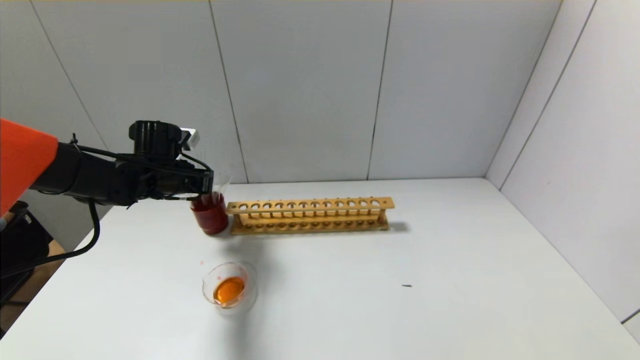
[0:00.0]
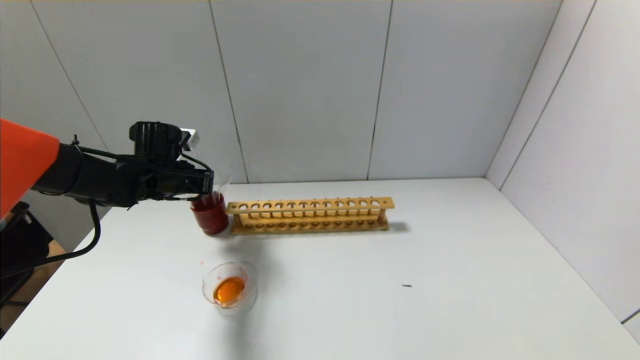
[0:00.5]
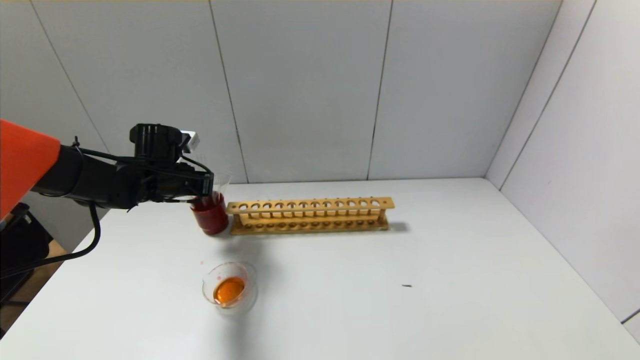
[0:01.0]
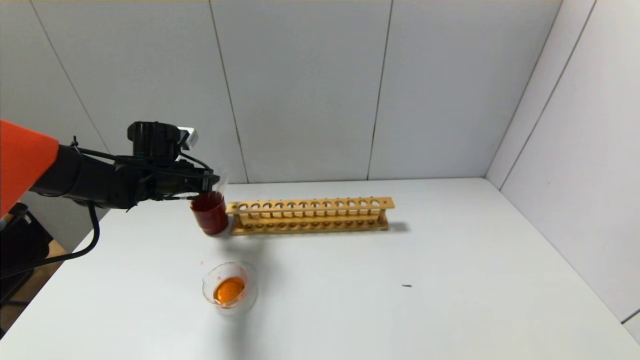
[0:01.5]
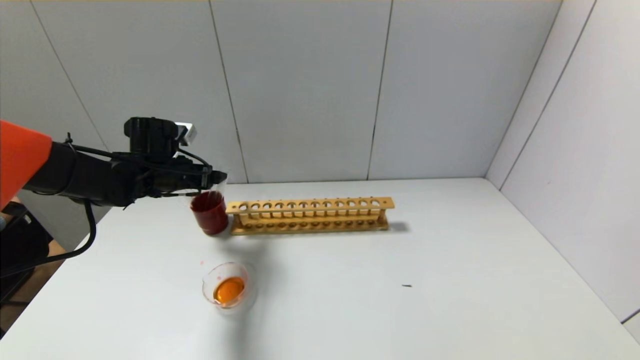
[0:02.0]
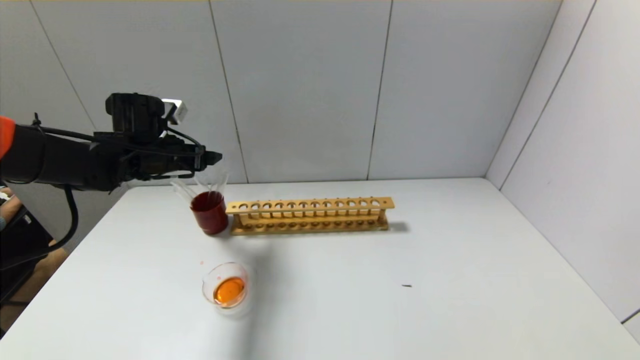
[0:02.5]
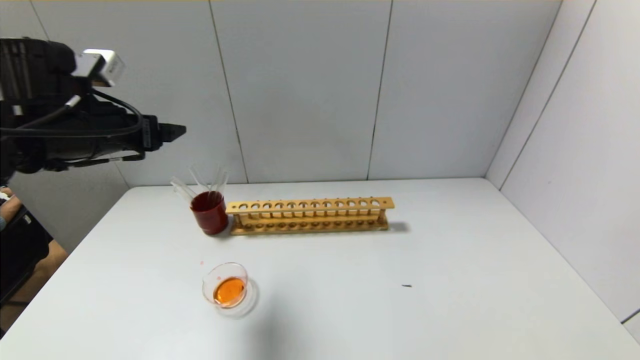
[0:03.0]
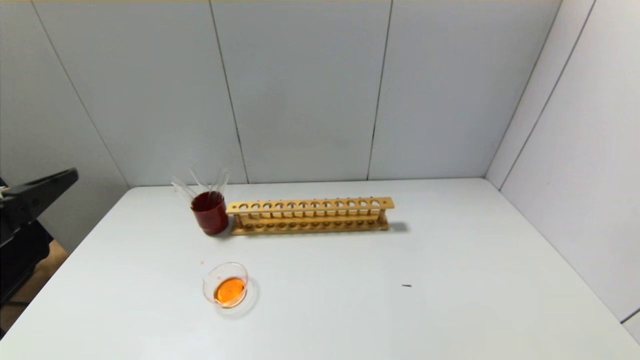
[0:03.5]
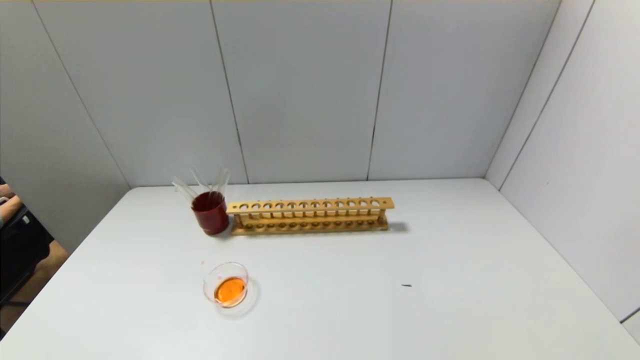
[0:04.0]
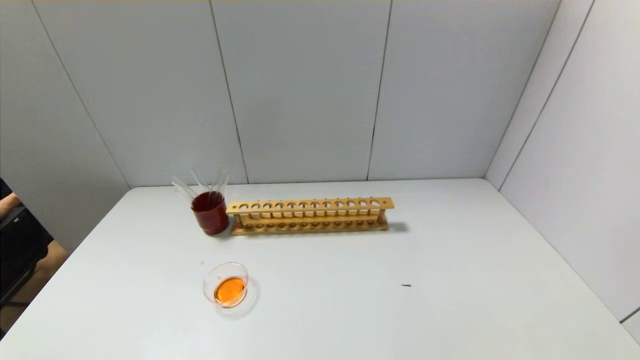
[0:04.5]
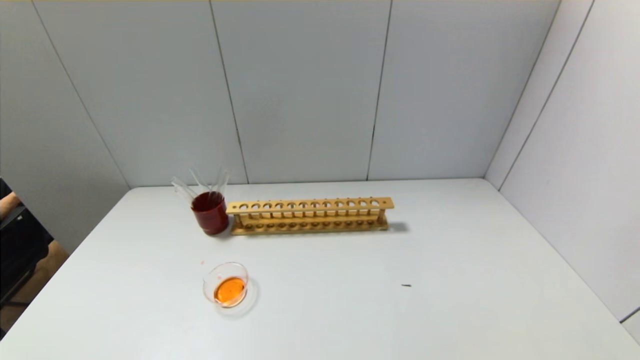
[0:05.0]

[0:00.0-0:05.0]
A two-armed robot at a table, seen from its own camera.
0.0 to 2.5 s: The left gripper shifts roughly 5 cm upward, and opens its fingers.
2.5 to 5.0 s: The left gripper moves backward, approximately 40 cm.

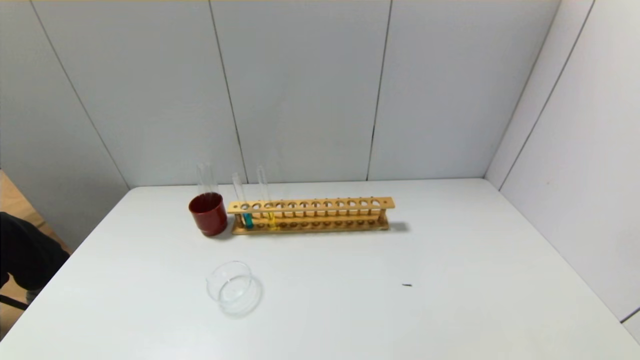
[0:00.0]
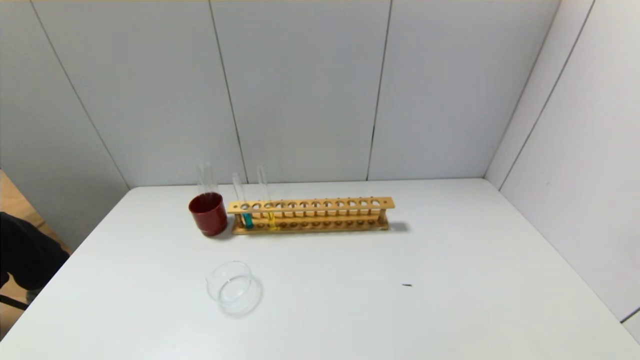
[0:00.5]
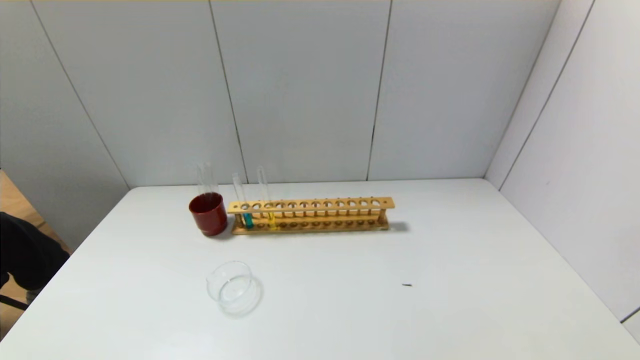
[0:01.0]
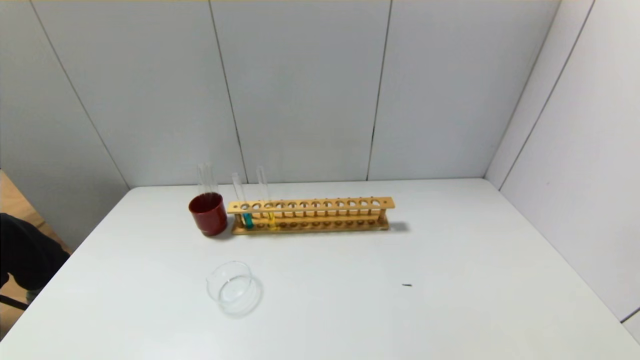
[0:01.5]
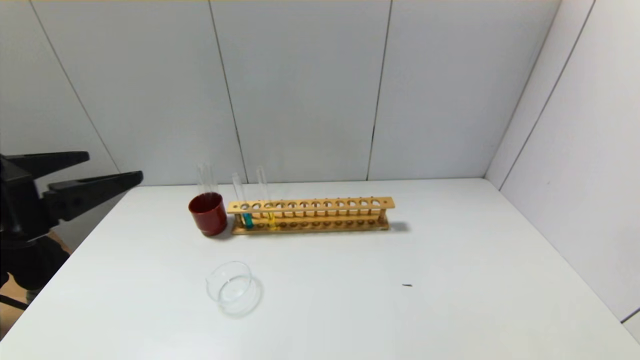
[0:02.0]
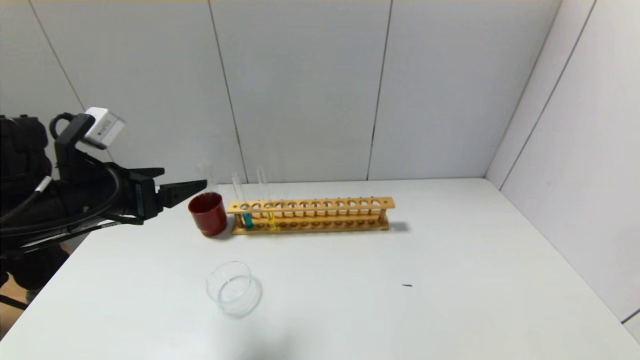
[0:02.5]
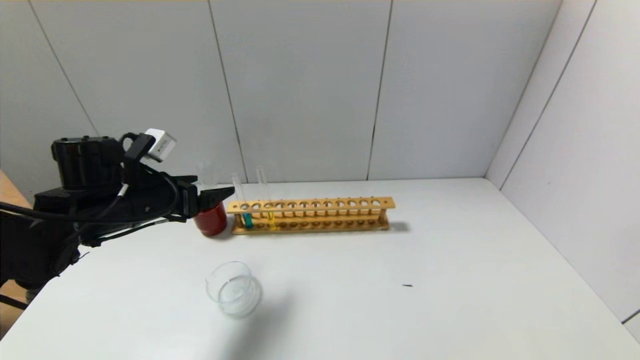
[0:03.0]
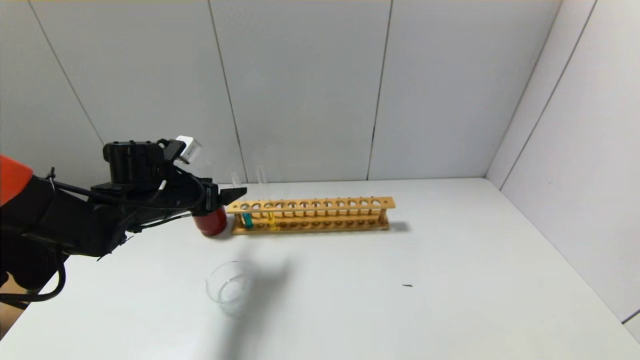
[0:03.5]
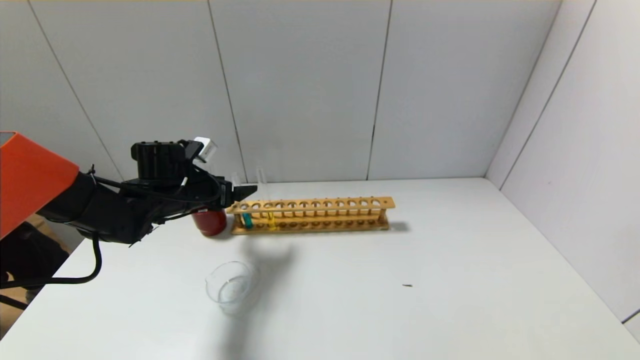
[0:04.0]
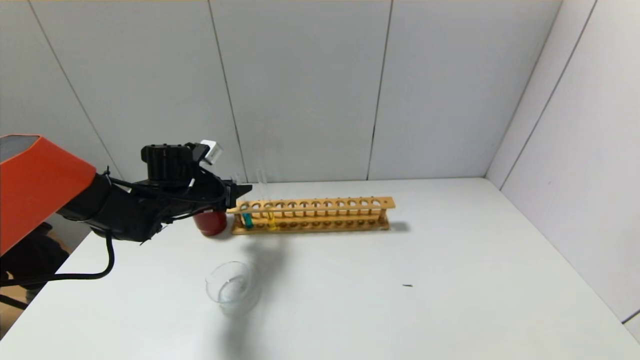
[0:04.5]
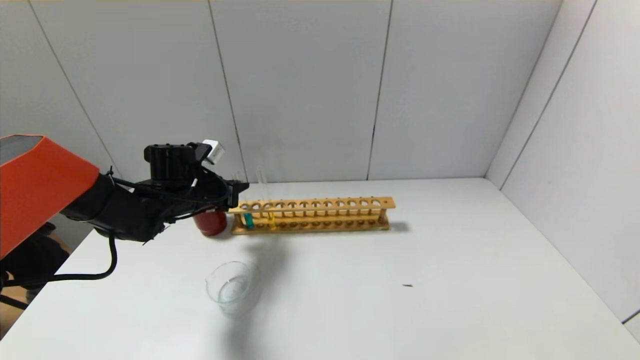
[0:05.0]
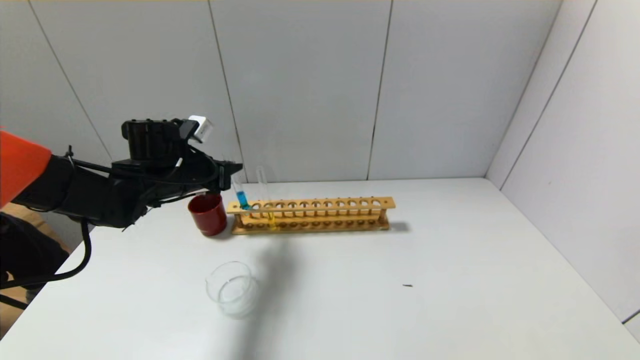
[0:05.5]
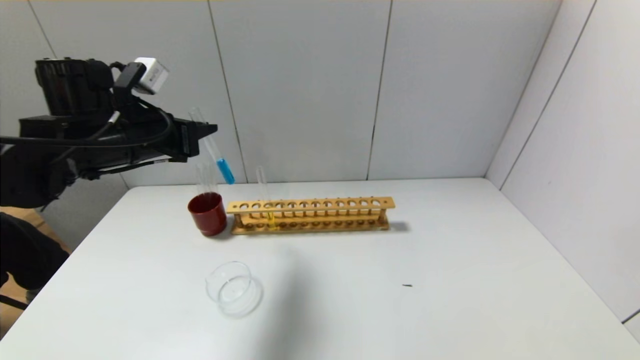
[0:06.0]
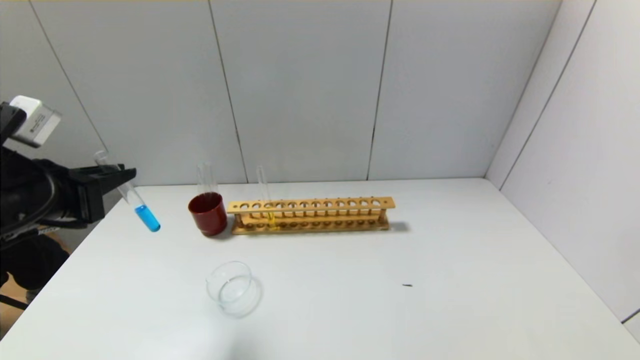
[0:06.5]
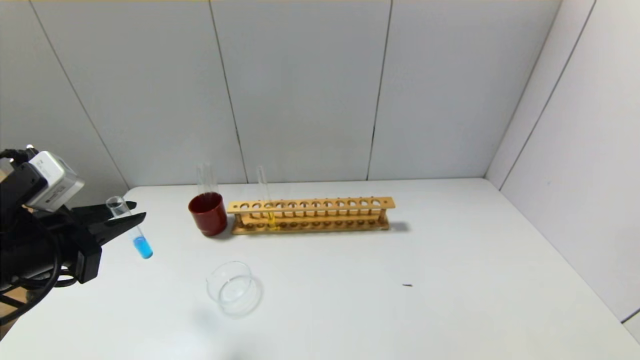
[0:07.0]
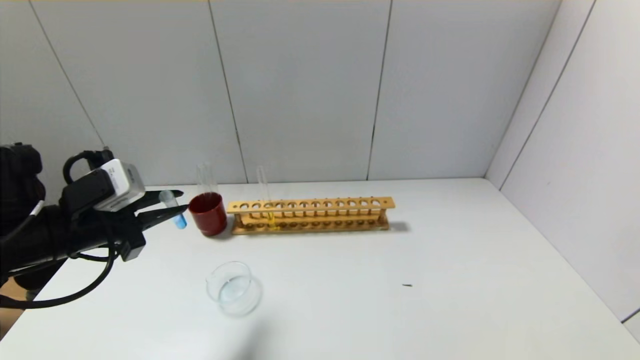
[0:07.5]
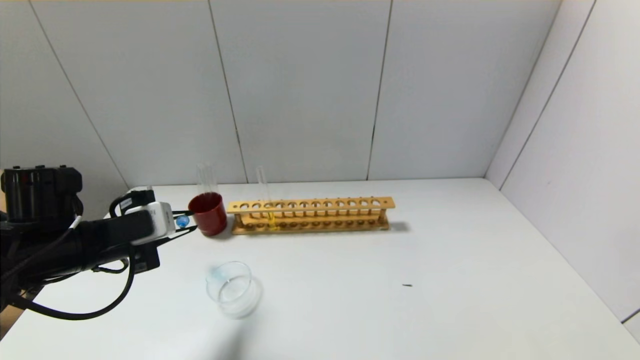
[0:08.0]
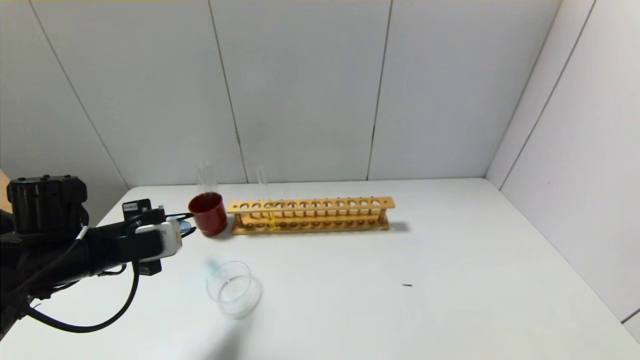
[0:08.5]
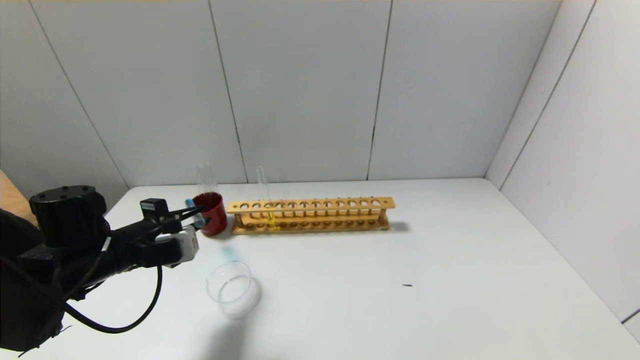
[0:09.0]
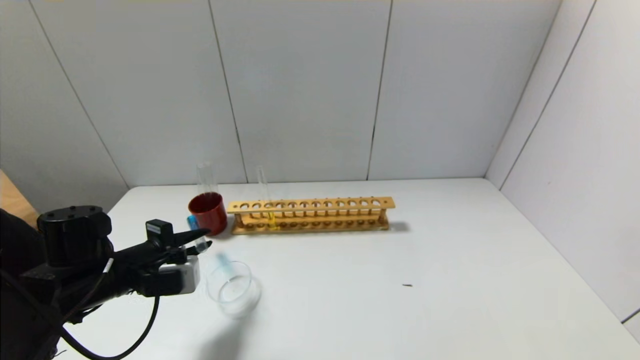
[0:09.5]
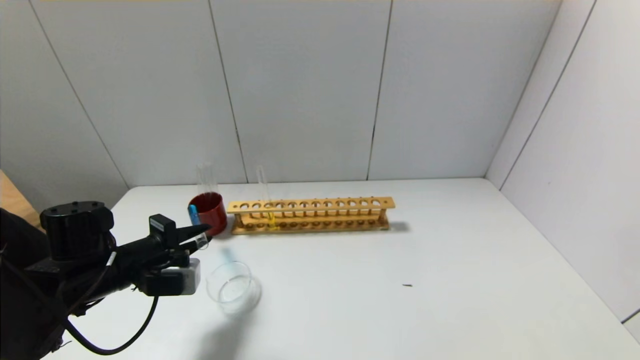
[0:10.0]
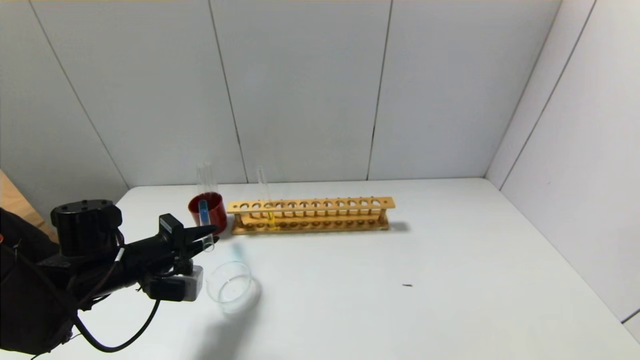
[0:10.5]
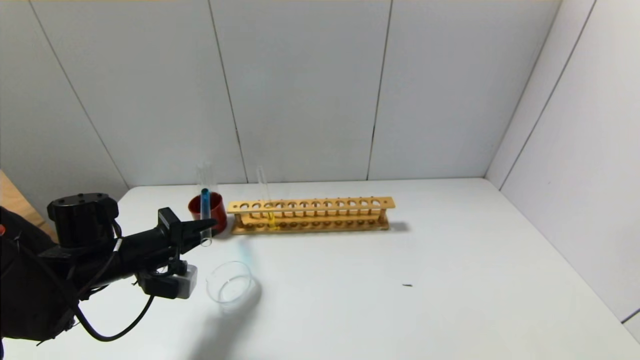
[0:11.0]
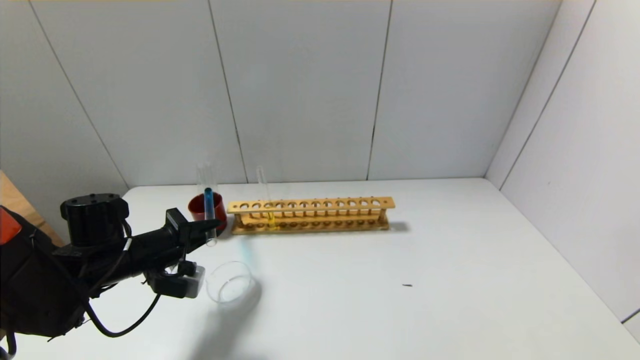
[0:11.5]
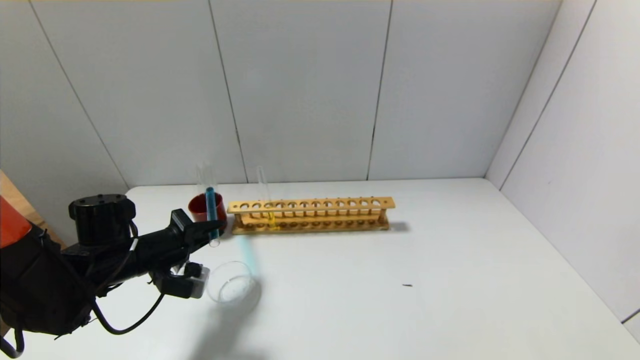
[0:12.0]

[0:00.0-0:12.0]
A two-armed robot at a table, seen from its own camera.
Step, 0.0 to 4.5 s: Grasp the blue reagent with the left gripper.
0.0 to 2.0 s: The left gripper is displaced upward and forward by roughly 25 cm.
2.0 to 4.0 s: The left gripper heads forward and downward, covering some 30 cm.
4.0 to 6.0 s: The left gripper travels upward and backward by roughly 15 cm, and closes its fingers.
6.0 to 8.0 s: The left gripper travels downward and backward by approximately 15 cm.
8.0 to 10.0 s: The left gripper travels downward by approximately 5 cm.
10.0 to 12.0 s: There are only small adjustments of the grippers.

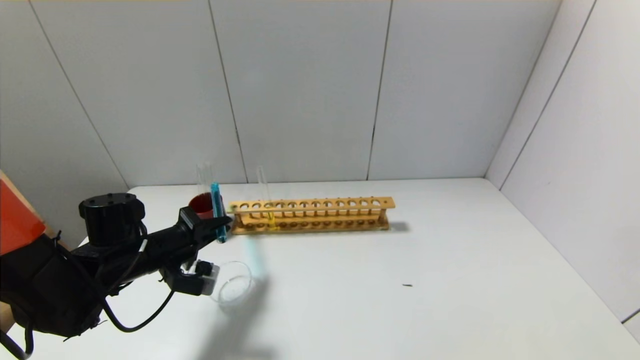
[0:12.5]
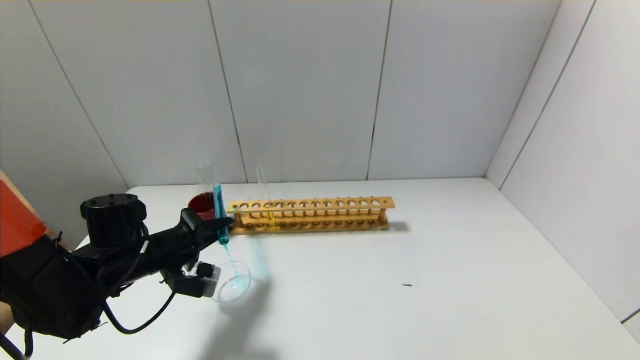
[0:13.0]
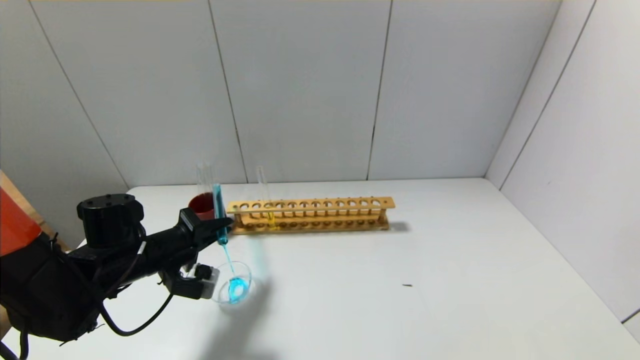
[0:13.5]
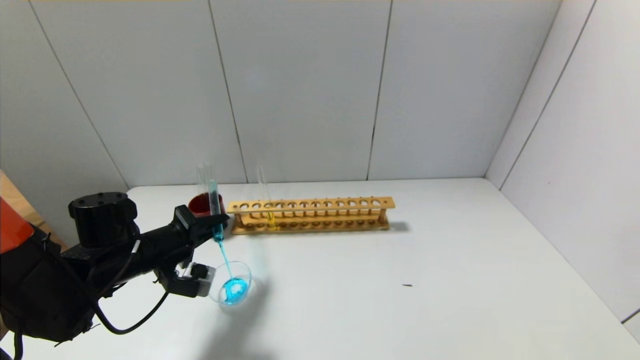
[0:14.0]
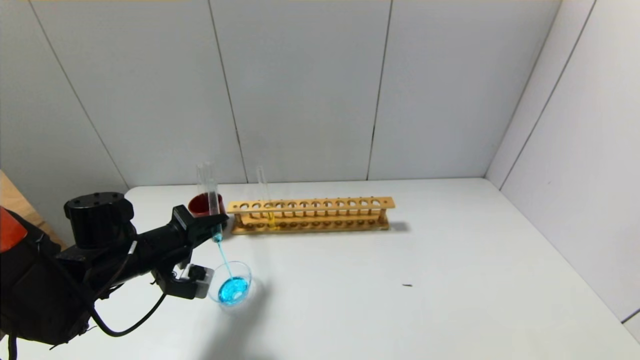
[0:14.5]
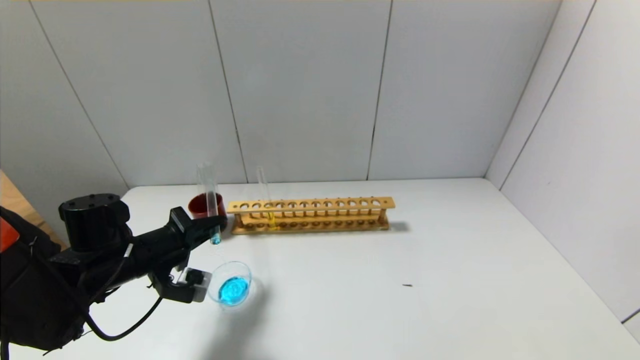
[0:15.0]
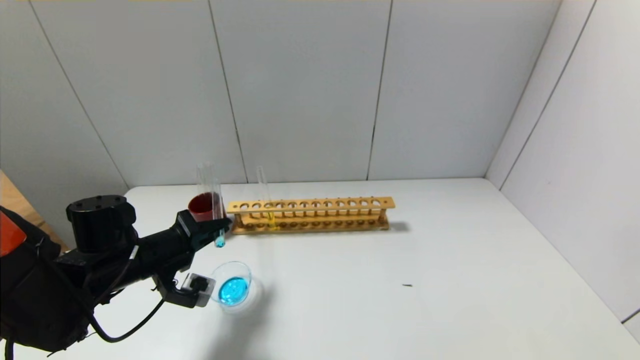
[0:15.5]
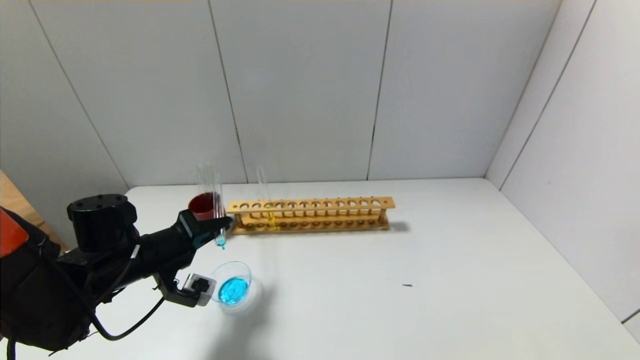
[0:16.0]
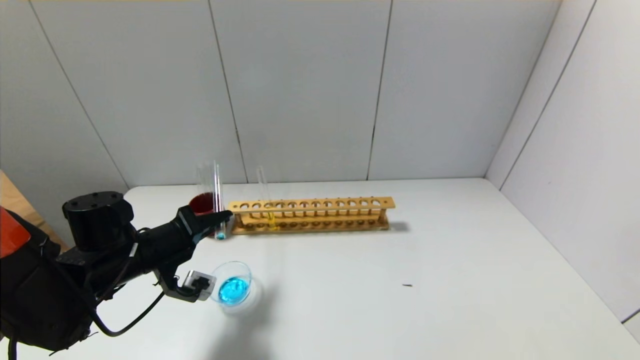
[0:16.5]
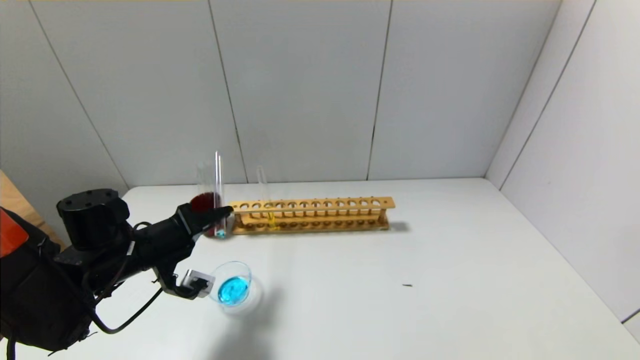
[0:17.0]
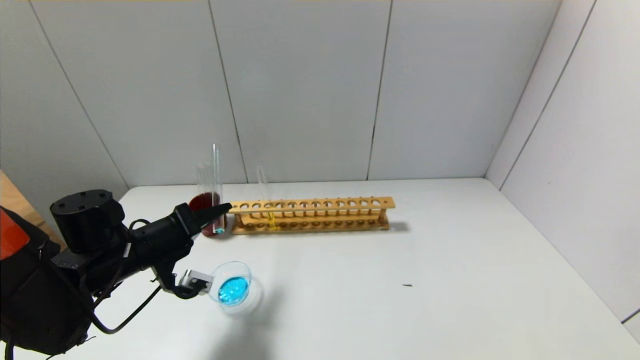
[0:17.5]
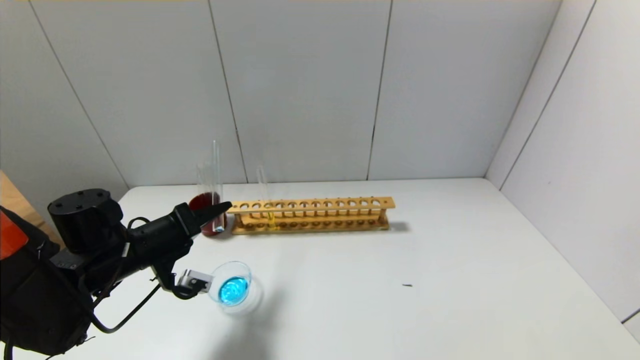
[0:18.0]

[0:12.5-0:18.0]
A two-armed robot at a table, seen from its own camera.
12.5 to 16.0 s: The grippers make only small movements.
16.0 to 18.0 s: There are only small adjustments of the grippers.
